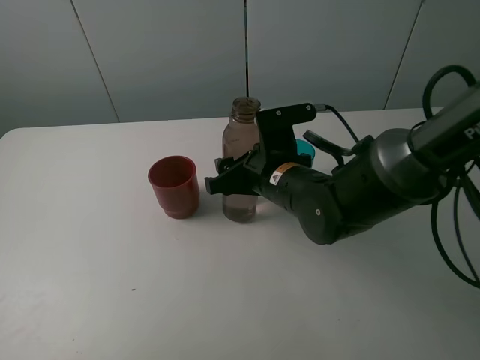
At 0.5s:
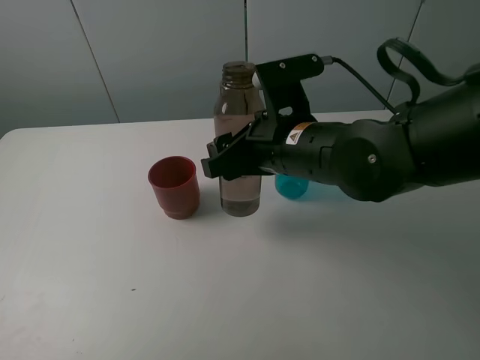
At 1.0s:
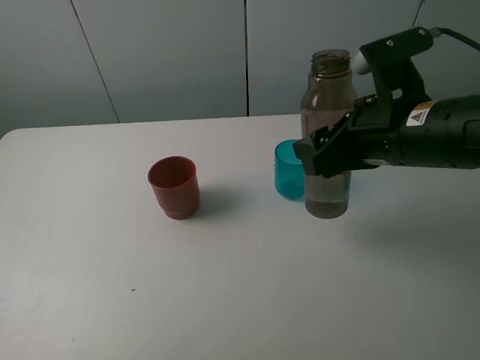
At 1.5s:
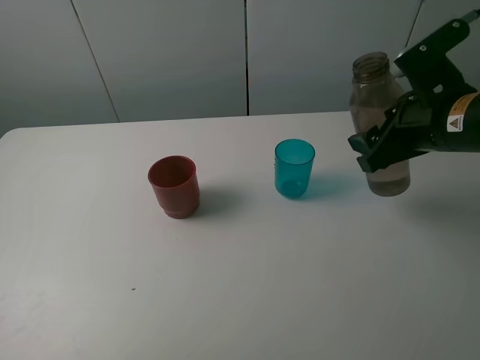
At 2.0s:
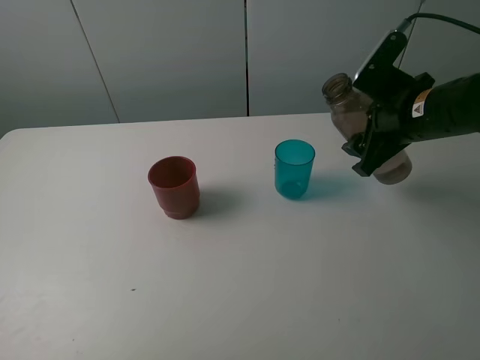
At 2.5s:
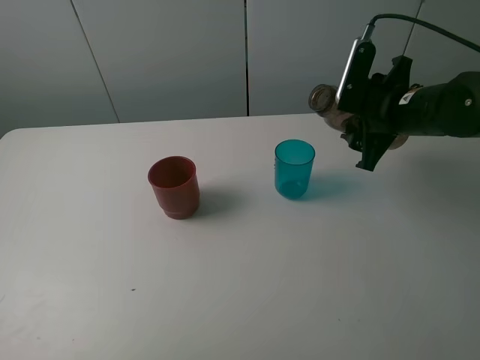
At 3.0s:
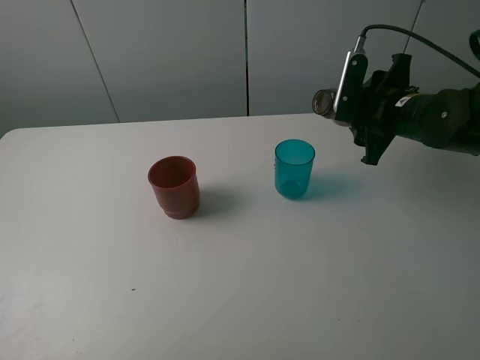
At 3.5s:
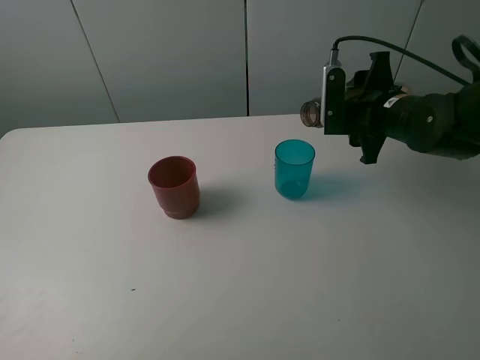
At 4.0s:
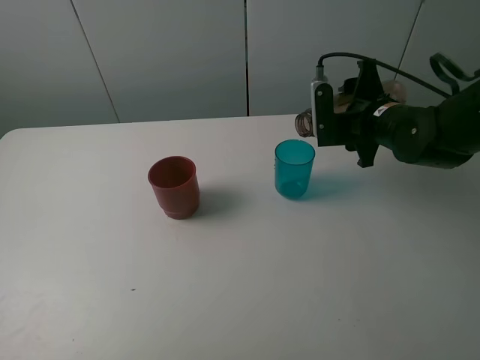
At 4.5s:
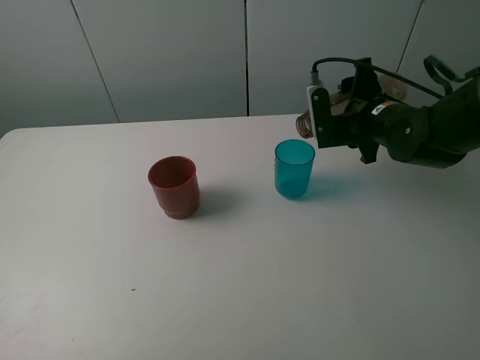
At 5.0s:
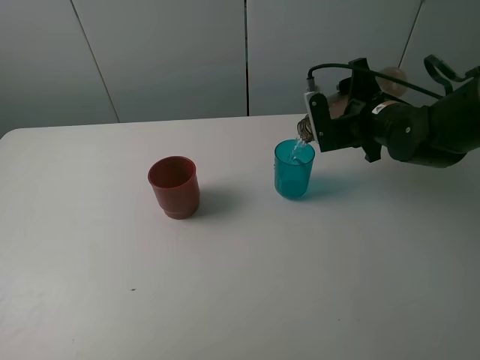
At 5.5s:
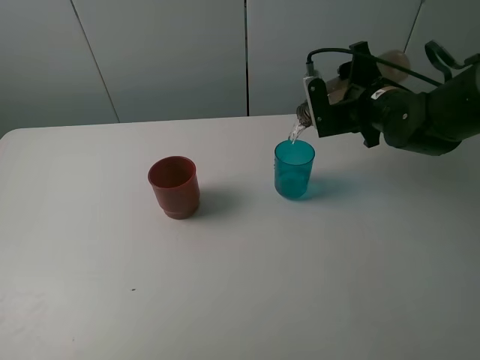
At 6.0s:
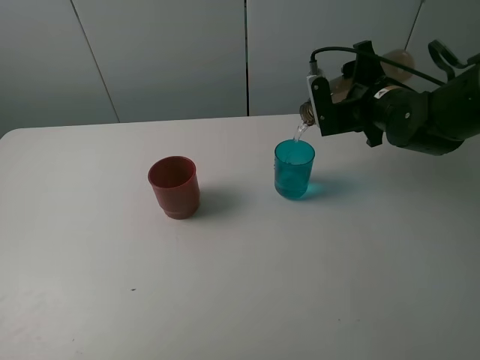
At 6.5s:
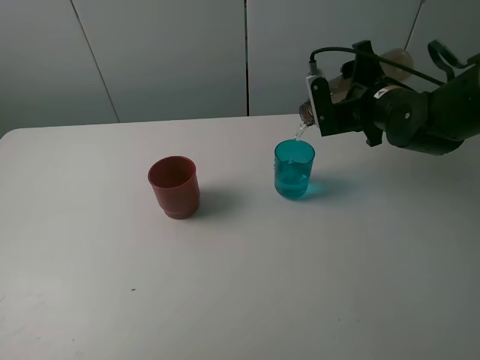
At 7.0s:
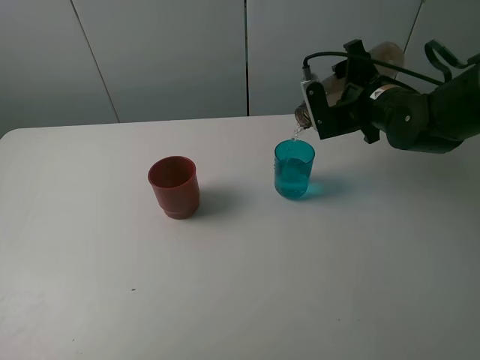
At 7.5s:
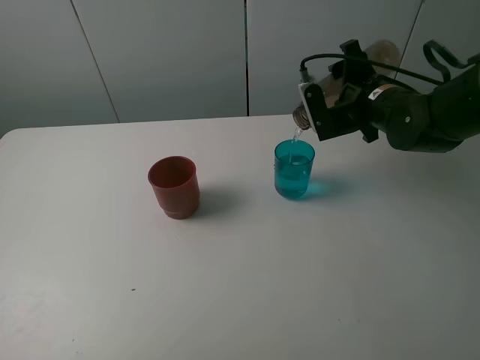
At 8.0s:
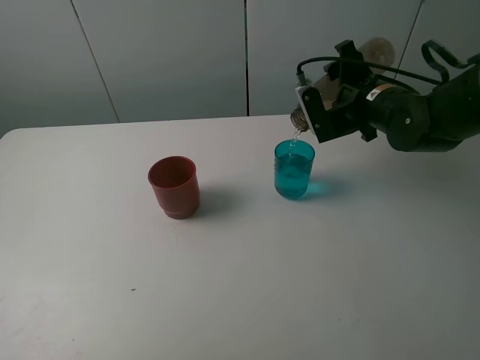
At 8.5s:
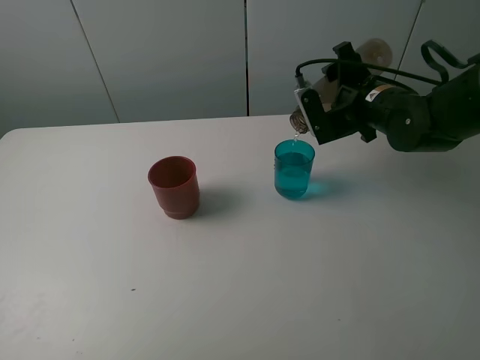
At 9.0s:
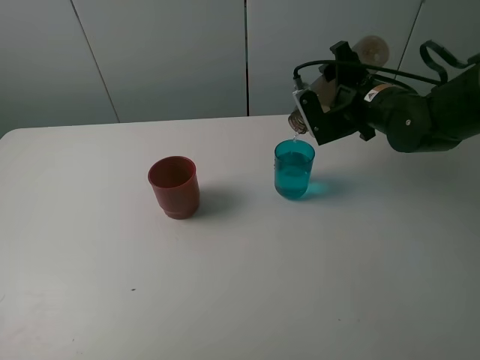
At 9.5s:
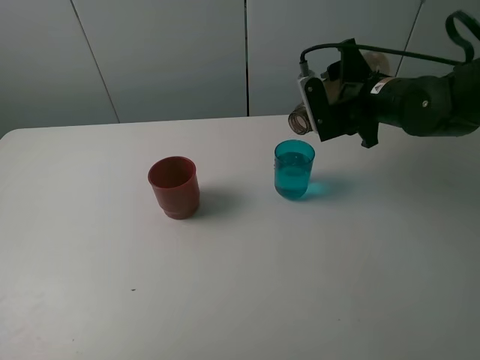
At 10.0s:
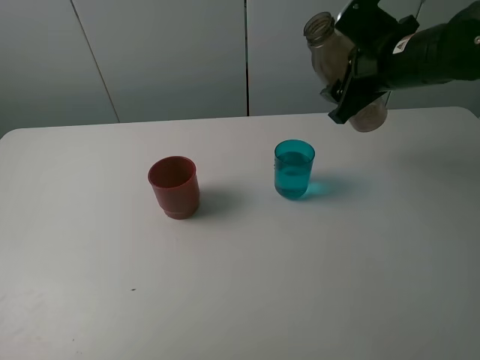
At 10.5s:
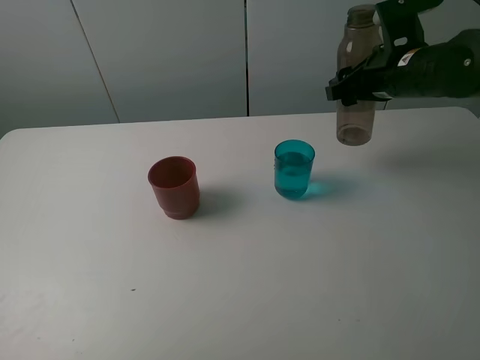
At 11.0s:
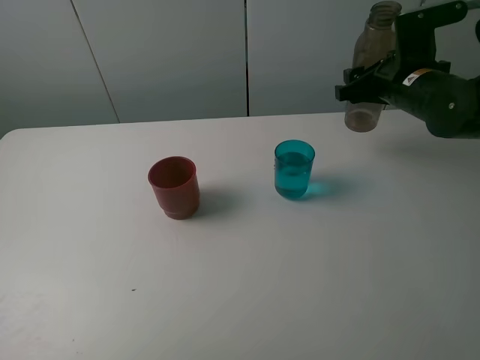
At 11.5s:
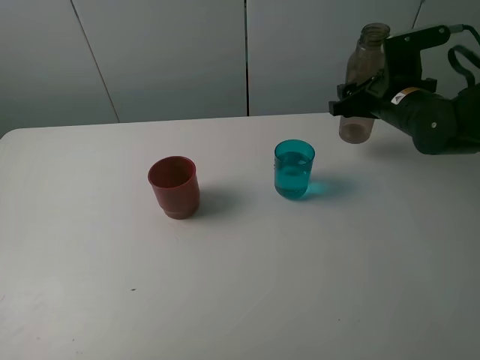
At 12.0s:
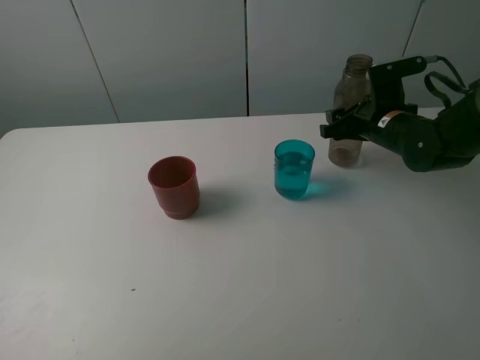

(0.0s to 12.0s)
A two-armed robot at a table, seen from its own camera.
Task of the whole recording: pick up the bottle and pour water into the cup, then pick up the cup containing water and pour it into another cup.
Step, 0.0s - 9.5s: Pour water from brown bottle to blue cup with the right gripper.
0.0s - 2.0s: The right gripper heads to the right and upward, covering approximately 20 cm.
2.0s - 4.0s: The right gripper shifts by roughly 5 cm.
4.0s - 6.0s: The grippers move only a little.
6.0s - 8.0s: There are only small adjustments of the grippers.
8.0s - 10.0s: The right gripper shifts some 5 cm upward.
10.0s - 12.0s: The right gripper heads downward, covering approximately 10 cm.

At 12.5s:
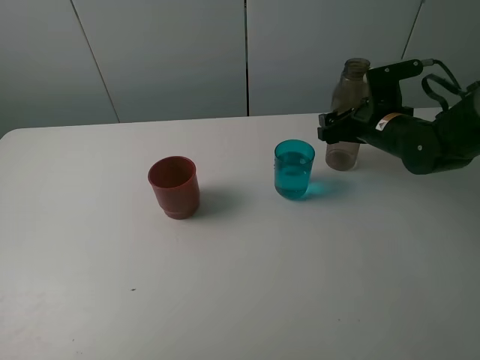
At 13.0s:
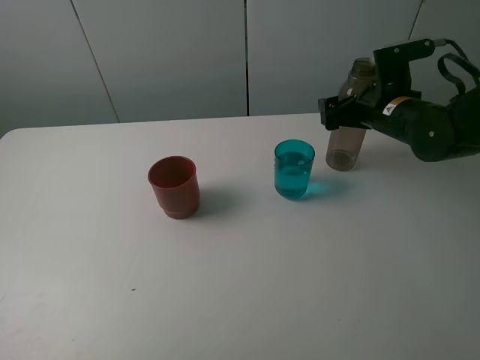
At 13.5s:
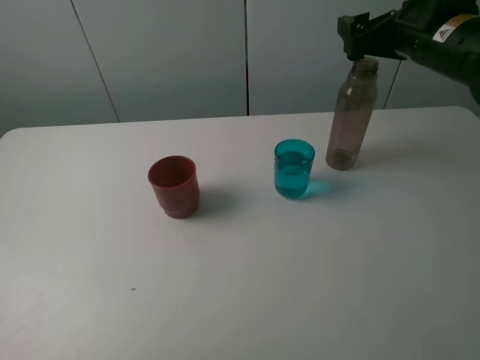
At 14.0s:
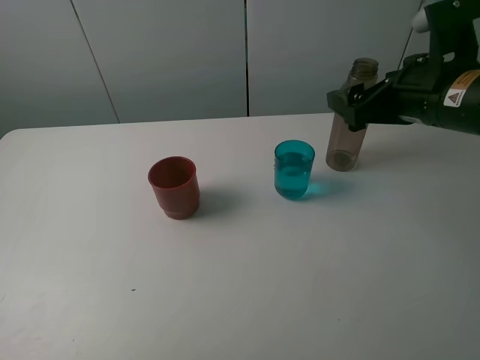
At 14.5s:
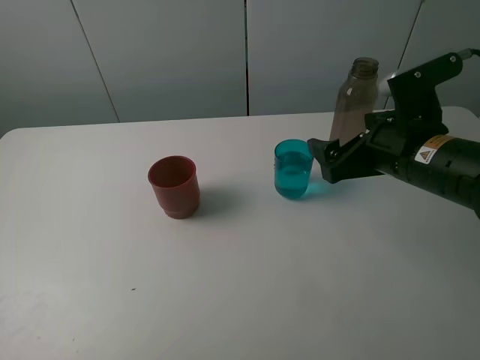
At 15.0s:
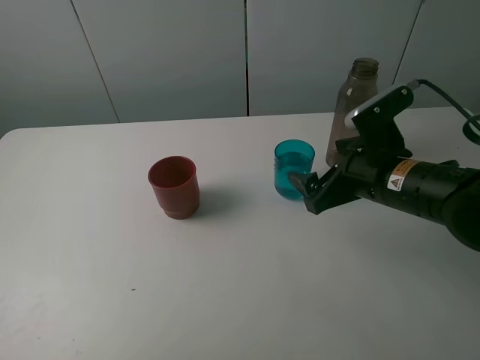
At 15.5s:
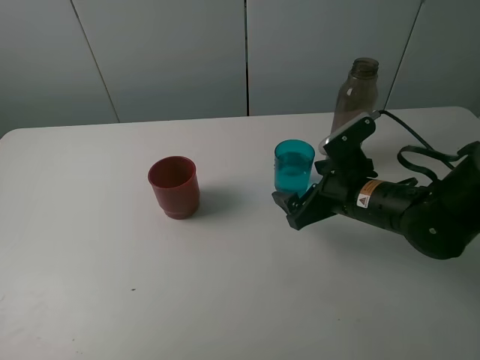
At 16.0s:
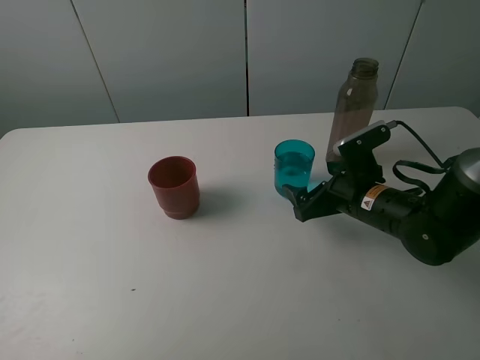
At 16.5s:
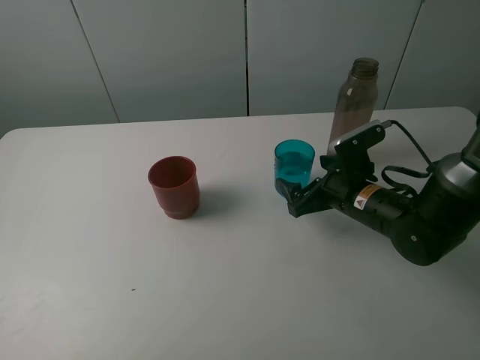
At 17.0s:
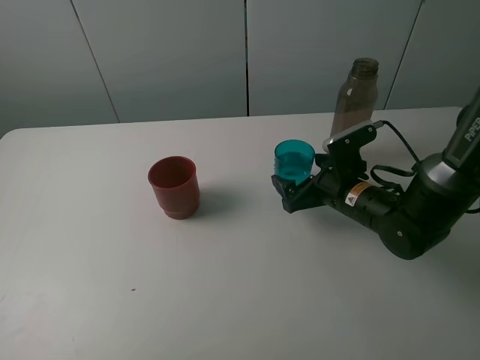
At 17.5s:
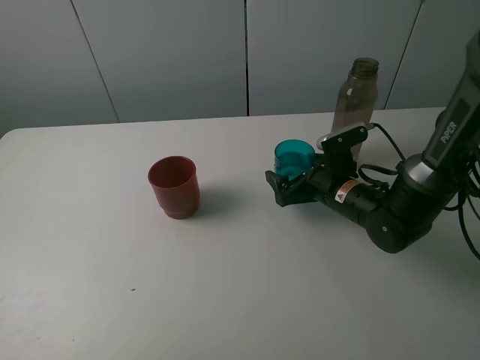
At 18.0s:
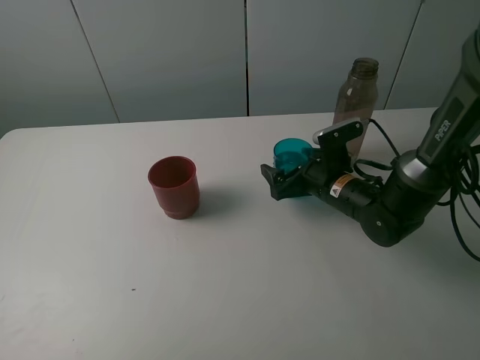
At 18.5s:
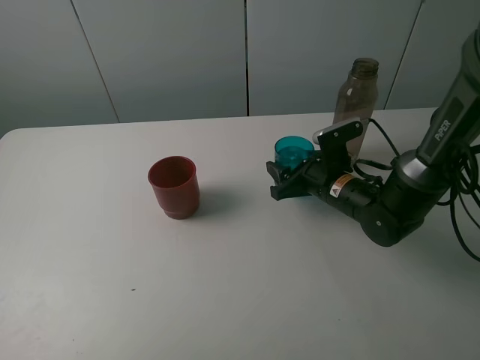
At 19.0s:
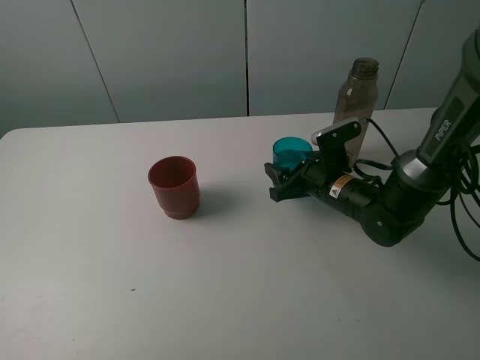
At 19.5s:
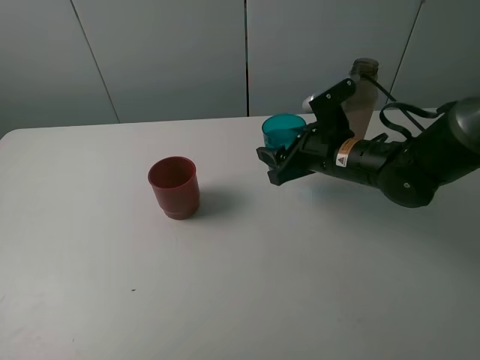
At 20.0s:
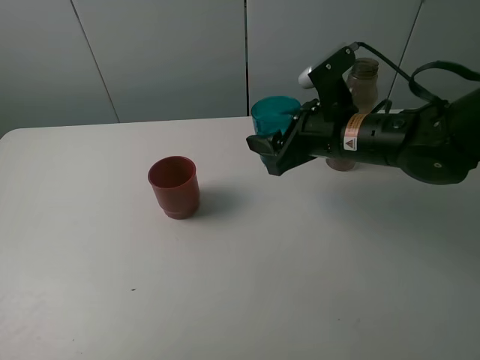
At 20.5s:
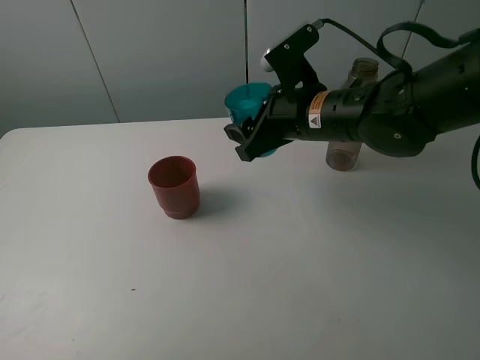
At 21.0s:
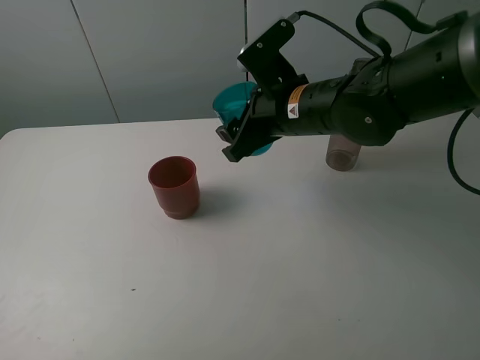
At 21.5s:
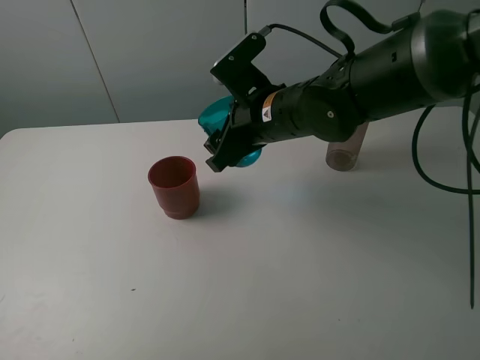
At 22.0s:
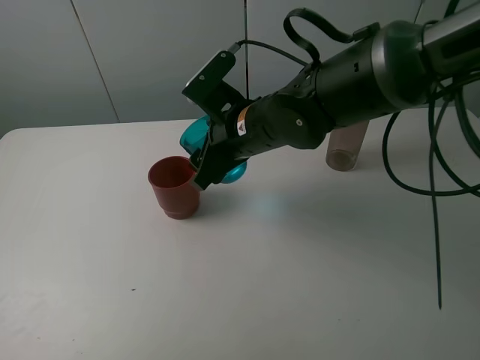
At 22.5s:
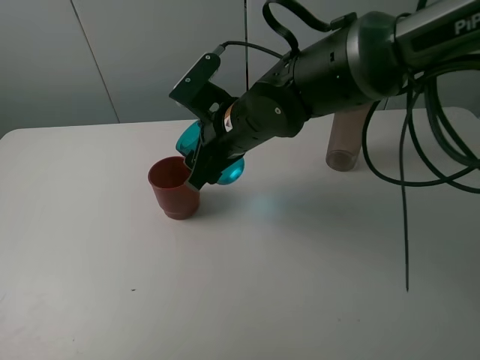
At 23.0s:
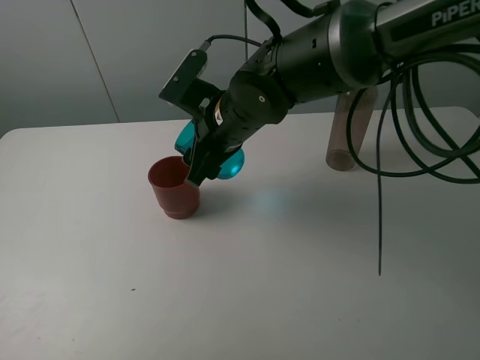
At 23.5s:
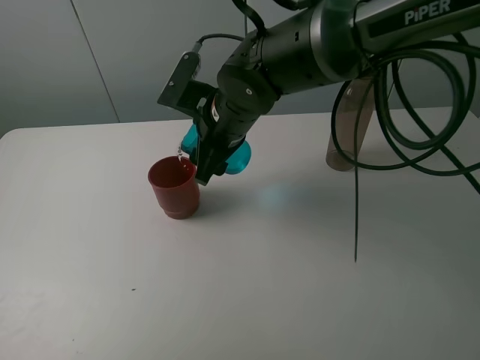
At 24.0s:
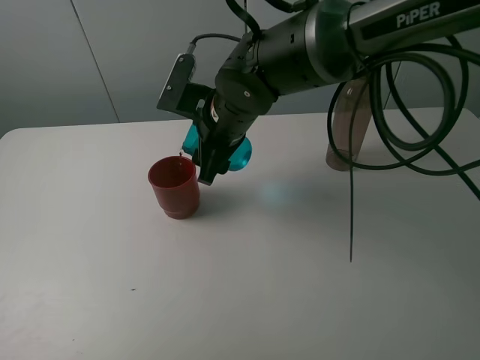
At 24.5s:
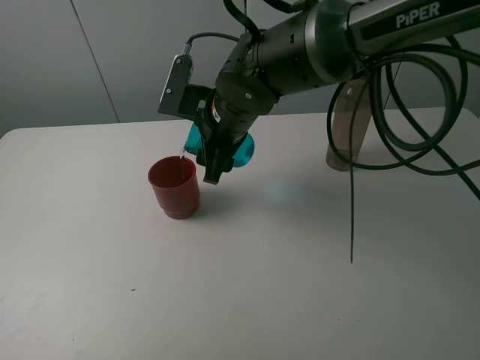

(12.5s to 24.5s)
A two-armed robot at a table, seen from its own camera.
Task of the whole recording: pick up the bottle and pour water into the cup, then pick up the cup containing water and pour it into another cup.
Step, 13.0s - 18.5s: Grasp the blue cup with the right gripper.
12.5s - 14.5s: The right gripper heads backward and upward, covering approximately 15 cm.
14.5s - 16.5s: The right gripper travels downward by about 10 cm.
16.5s - 18.5s: The right gripper closes up.
18.5s - 20.5s: The right gripper goes some 15 cm upward and to the left.
20.5s - 22.5s: The right gripper moves to the left, about 10 cm.

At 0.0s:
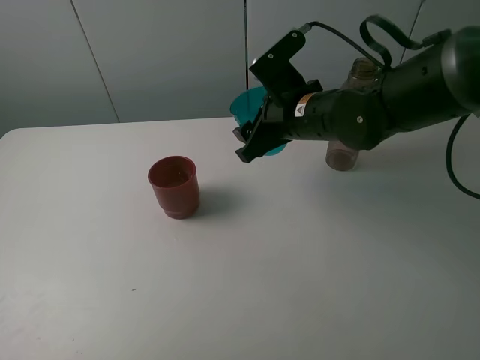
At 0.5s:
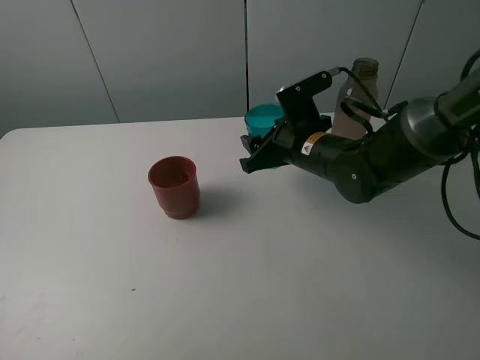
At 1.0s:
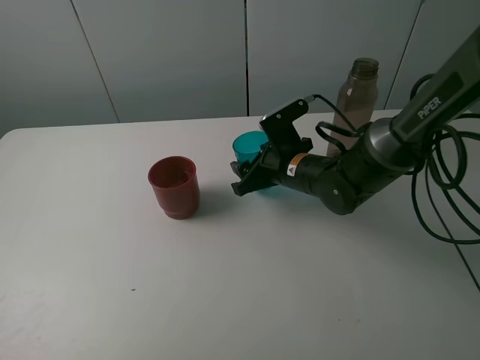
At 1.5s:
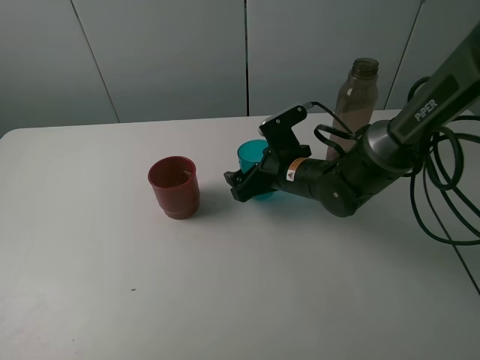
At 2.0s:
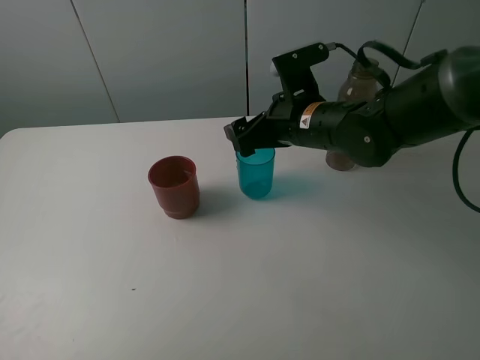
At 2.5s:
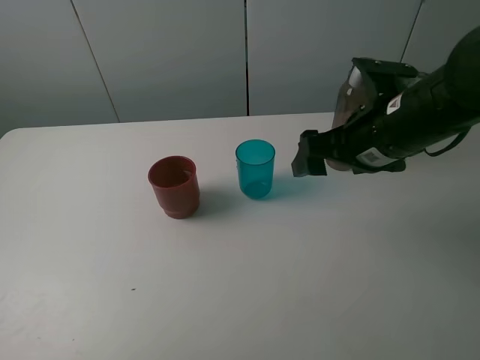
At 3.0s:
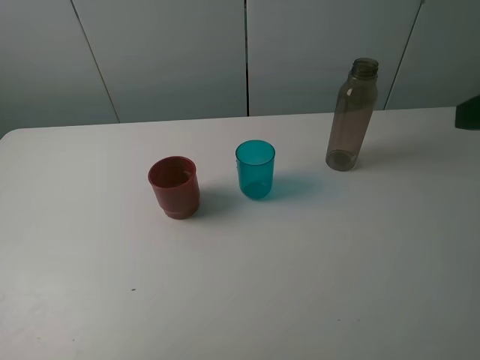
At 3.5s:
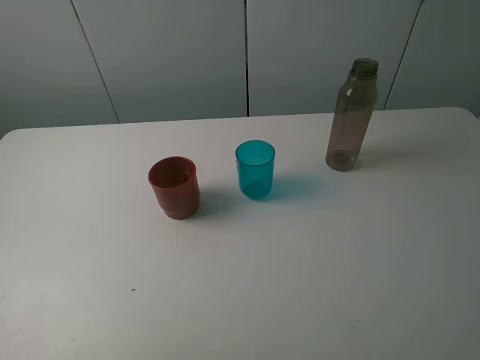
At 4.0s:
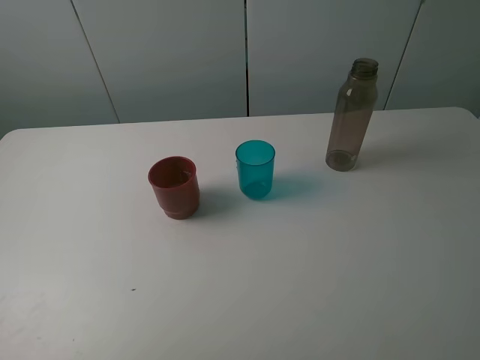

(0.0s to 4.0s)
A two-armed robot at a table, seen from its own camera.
Task of the whole recording: pick up the bottle and pour water into the cup, then pick up the cup containing water and pour it into another cup.
0.0s - 2.0s: The right gripper reaches some 10 cm downward, then returns, and opens up.
2.0s - 4.0s: The right gripper goes roughly 35 cm backward and to the right.
